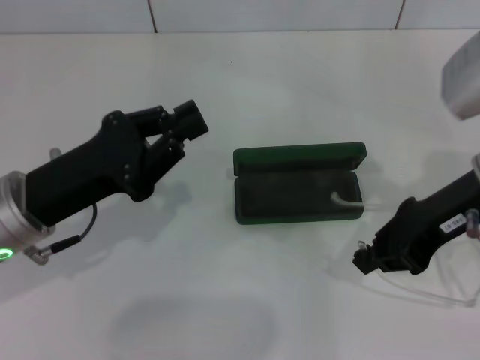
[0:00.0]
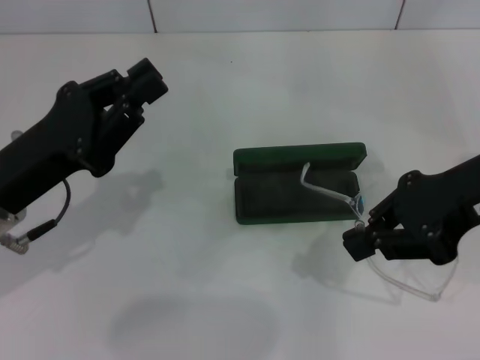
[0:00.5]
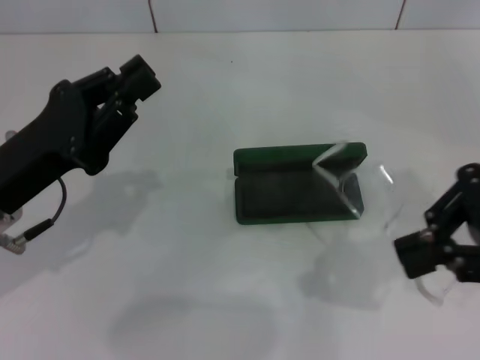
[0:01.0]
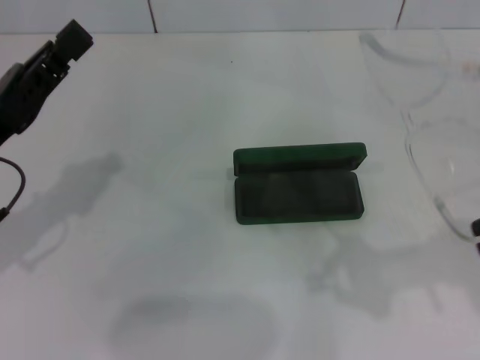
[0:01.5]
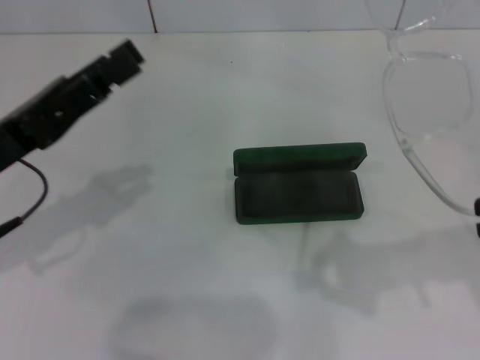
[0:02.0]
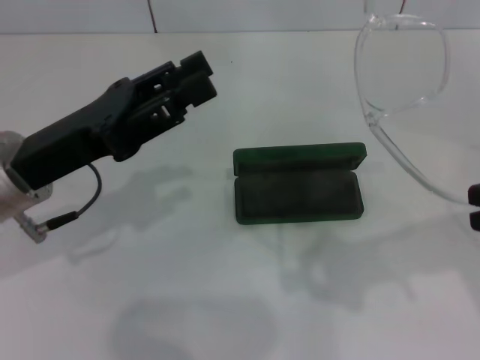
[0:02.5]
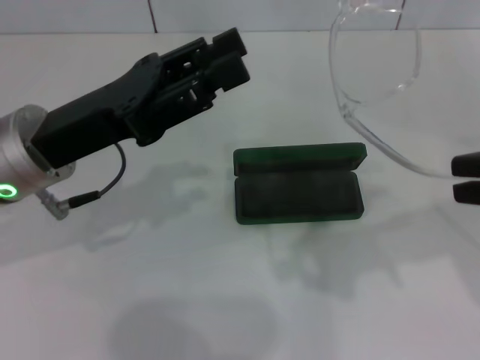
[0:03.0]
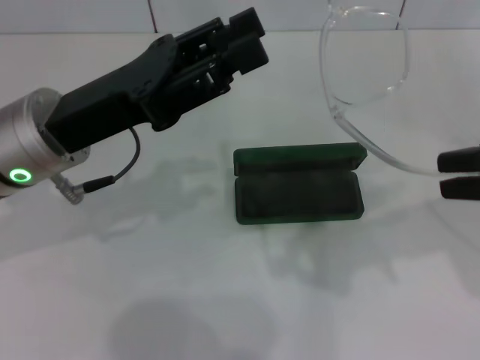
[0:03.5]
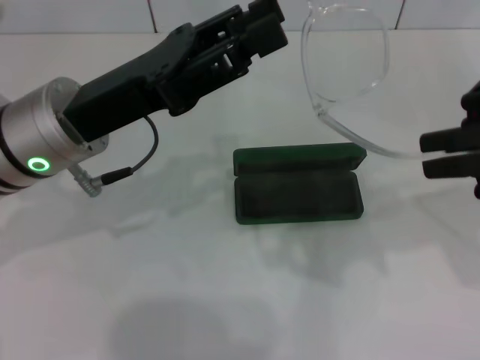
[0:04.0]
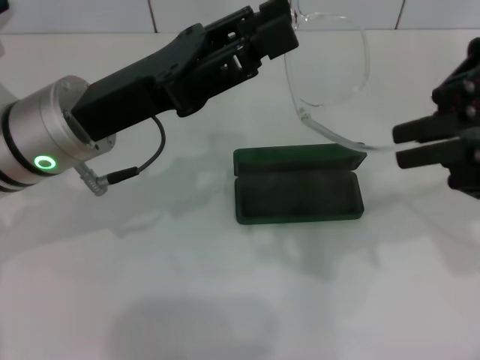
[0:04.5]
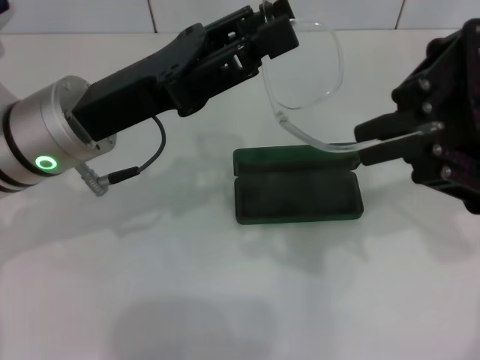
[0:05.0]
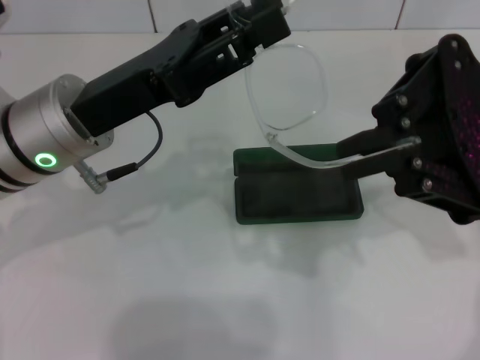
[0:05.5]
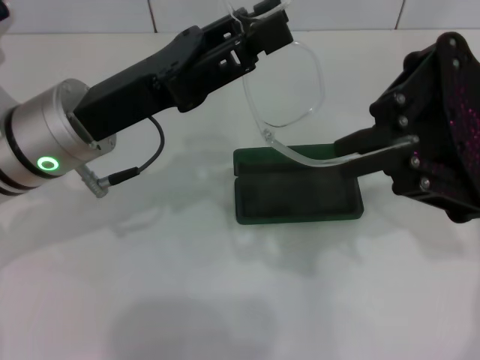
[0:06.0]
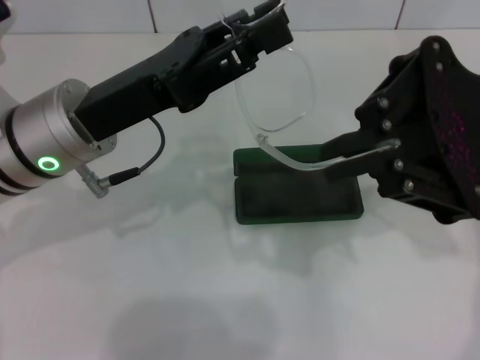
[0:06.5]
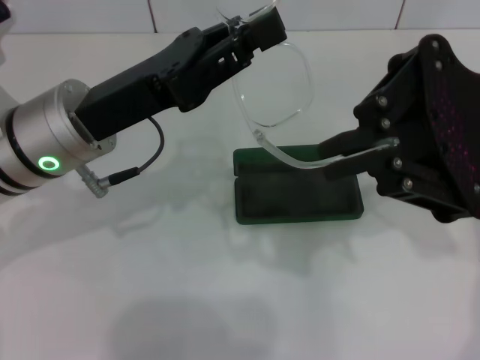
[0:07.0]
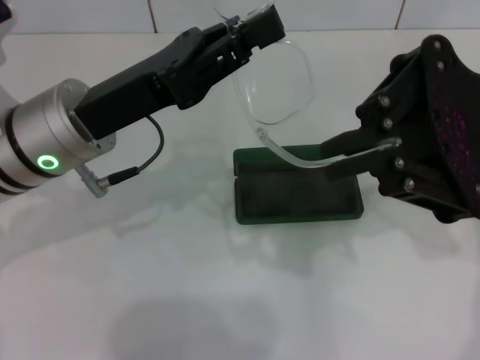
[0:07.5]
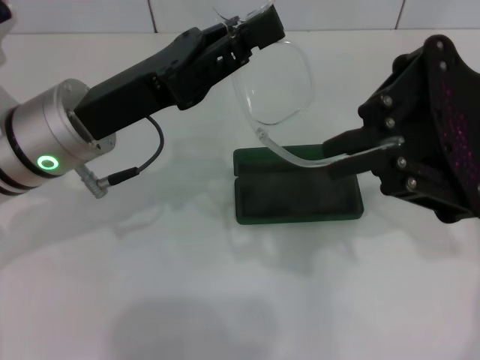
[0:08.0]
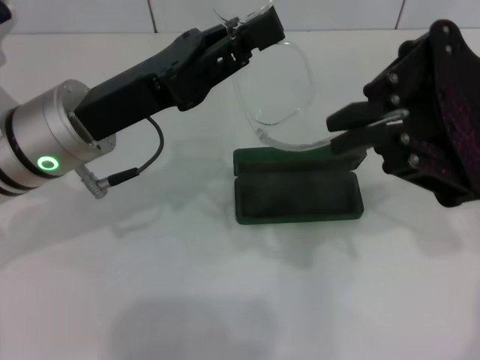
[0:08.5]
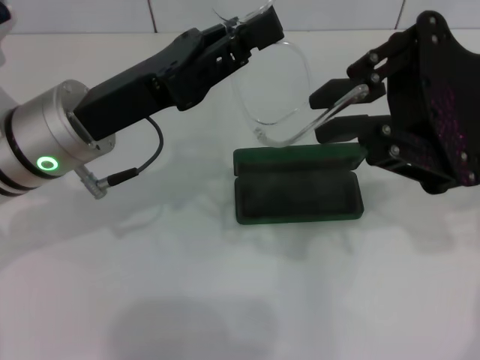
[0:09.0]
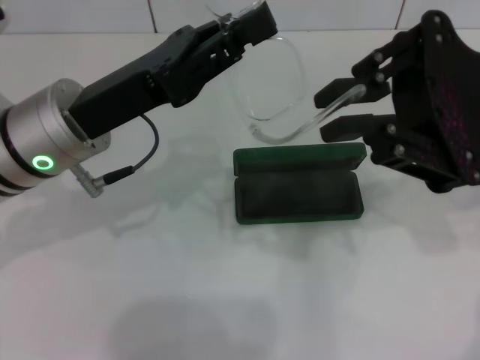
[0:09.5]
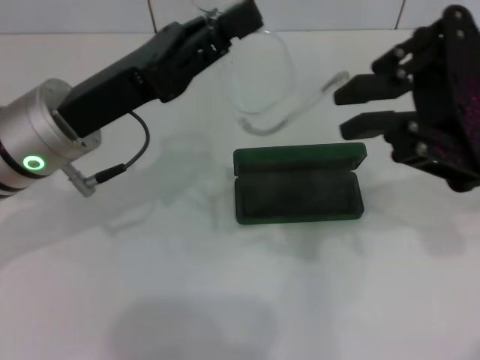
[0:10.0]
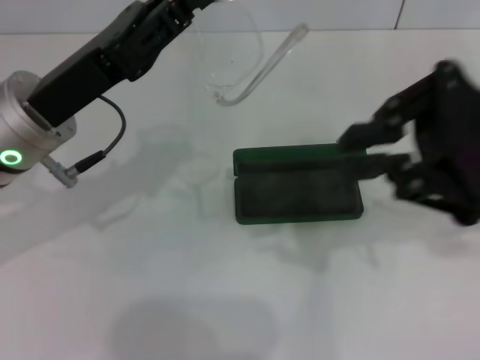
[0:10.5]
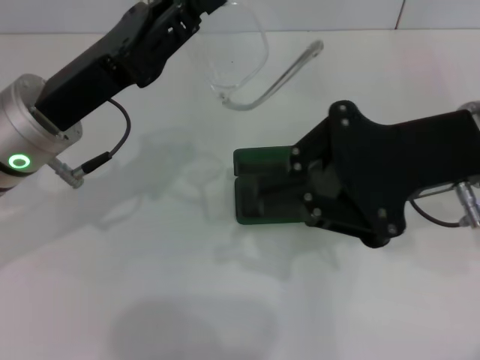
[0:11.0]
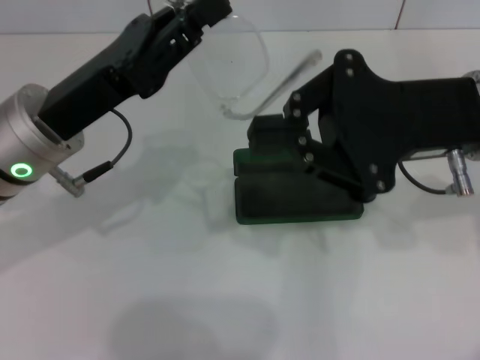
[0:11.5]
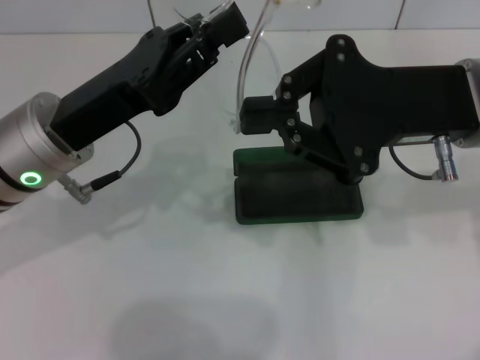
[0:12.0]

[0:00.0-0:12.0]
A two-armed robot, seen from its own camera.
Step, 0:00.0 to 0:07.0: Grab the glasses with your left hand.
0:00.0 to 0:02.0: The right gripper goes about 15 cm upward, backward and to the right.
0:02.0 to 0:04.0: The left gripper shifts about 10 cm to the right. Meanwhile the right gripper ends up about 5 cm from where it was.
0:04.0 to 0:06.0: There are only small adjustments of the grippers.
0:06.0 to 0:08.0: The left gripper closes its fingers.
0:08.0 to 0:10.0: There are only small adjustments of the grippers.
0:10.0 to 0:12.0: The grippers move only a little.

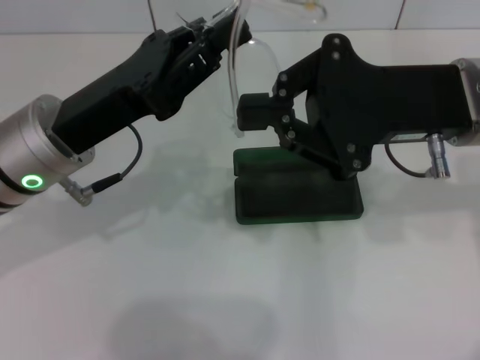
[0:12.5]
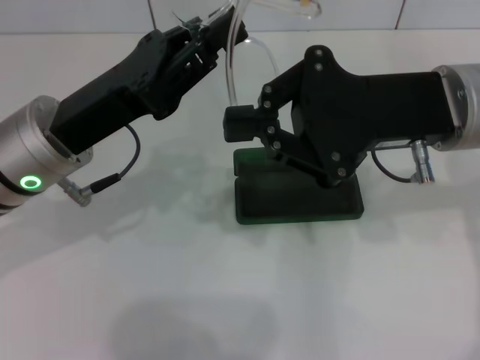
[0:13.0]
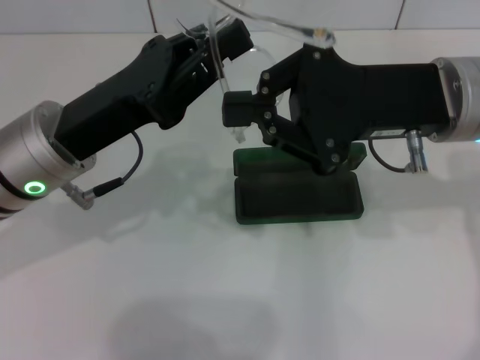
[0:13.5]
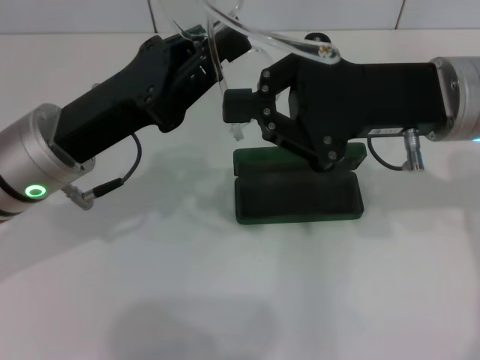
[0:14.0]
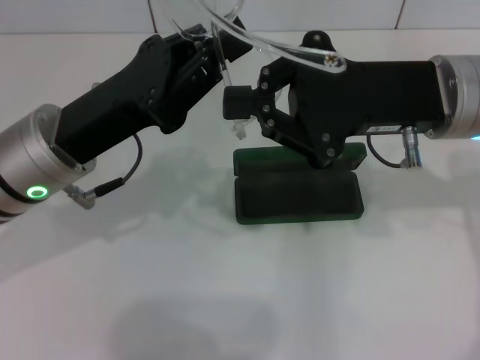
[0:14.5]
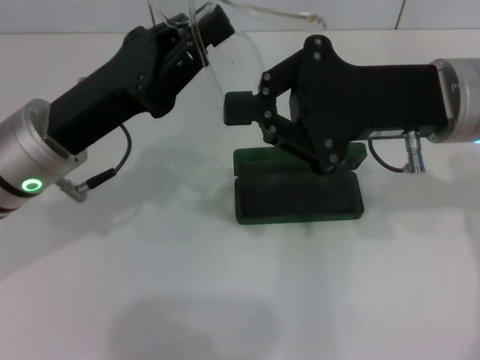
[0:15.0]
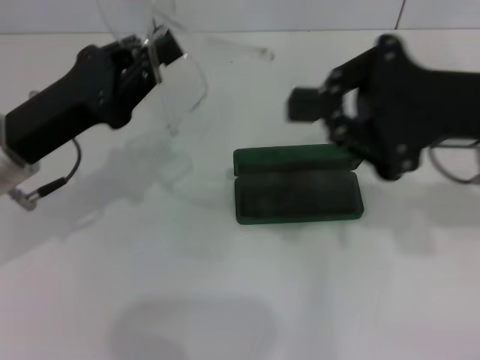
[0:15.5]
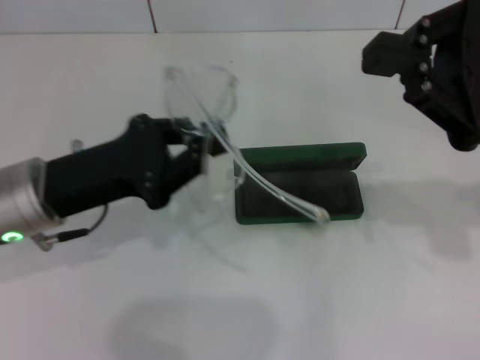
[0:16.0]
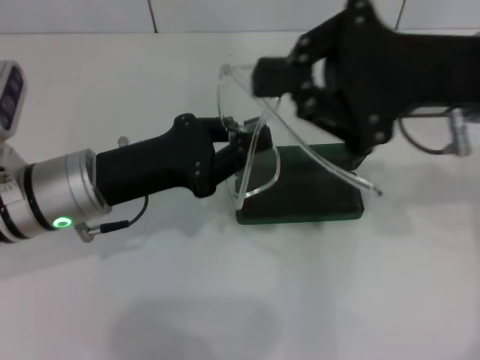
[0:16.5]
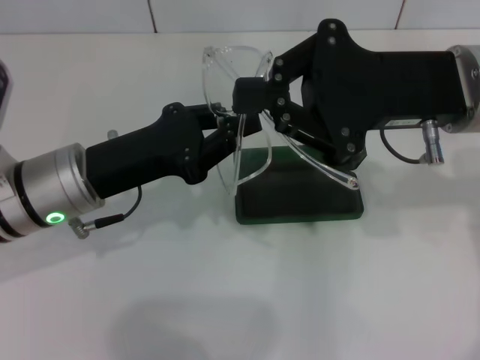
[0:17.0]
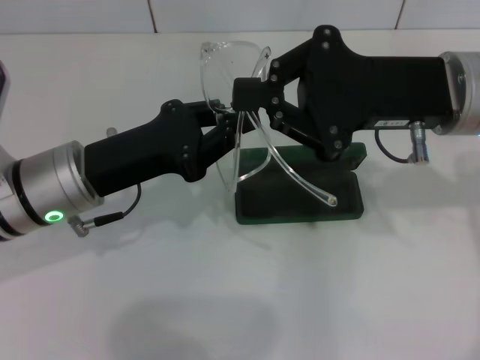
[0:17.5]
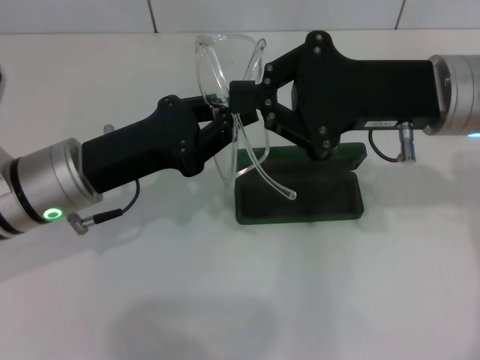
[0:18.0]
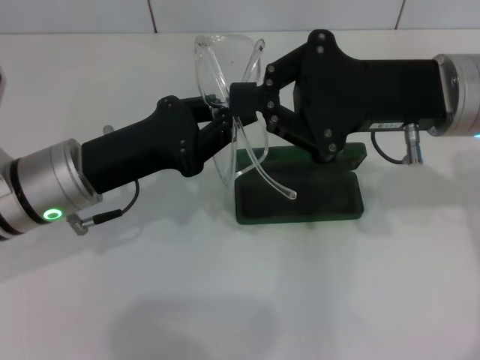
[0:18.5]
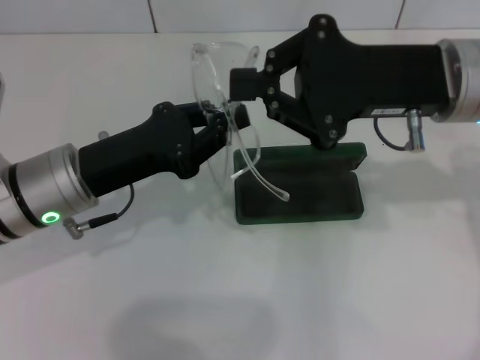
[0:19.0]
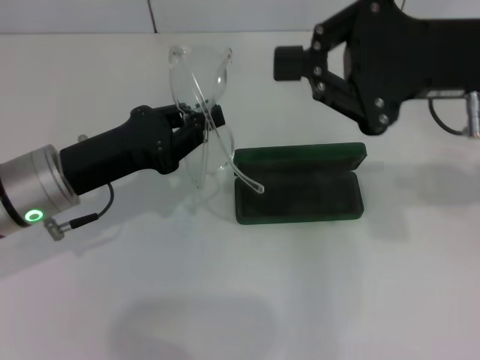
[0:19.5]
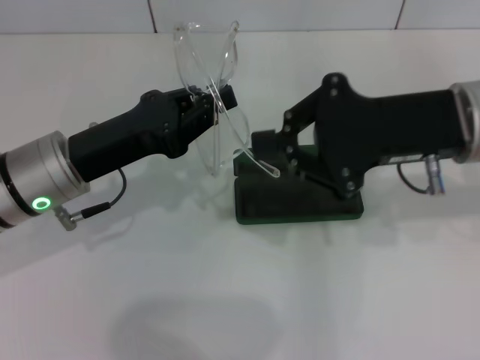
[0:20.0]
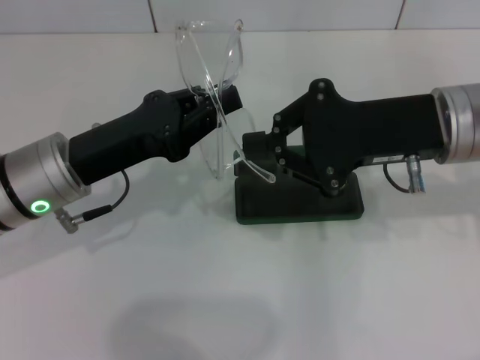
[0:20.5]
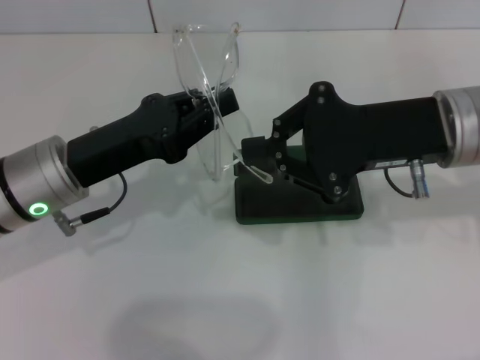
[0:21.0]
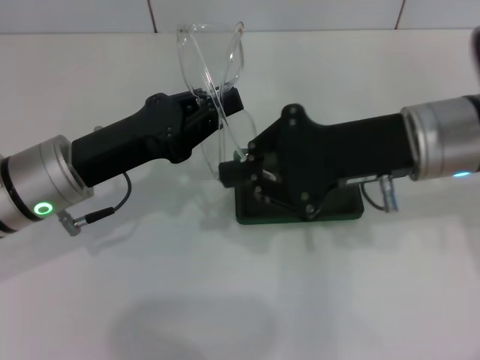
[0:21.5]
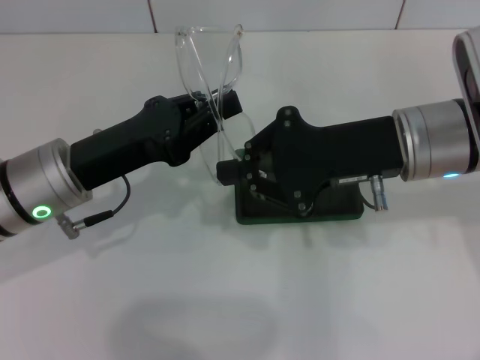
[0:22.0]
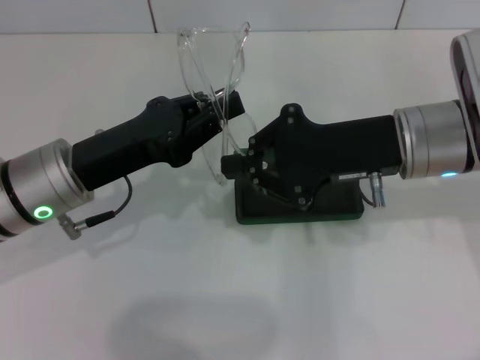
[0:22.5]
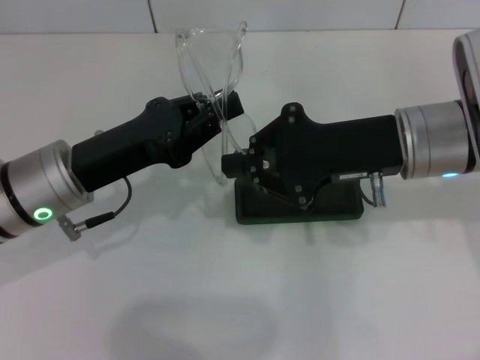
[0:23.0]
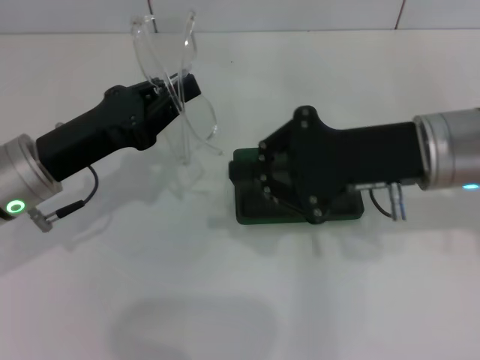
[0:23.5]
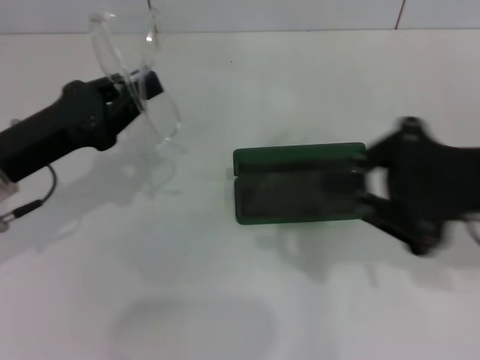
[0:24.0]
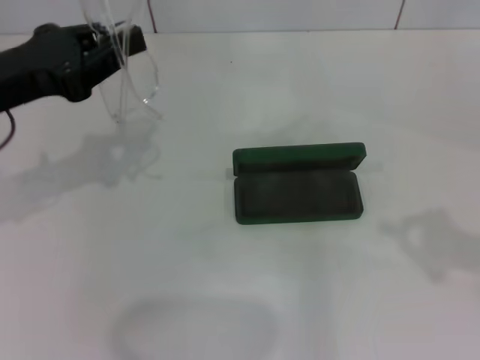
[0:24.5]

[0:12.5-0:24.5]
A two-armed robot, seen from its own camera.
Step, 0:12.5 to 0:21.0: Fold the frame with your right hand.
0:12.5 to 0:14.5: The grippers make only small movements.
0:14.5 to 0:16.5: The right gripper travels to the right and back again, roughly 10 cm each way.
0:18.5 to 0:22.5: The grippers make only small movements.
0:22.5 to 0:24.5: The right gripper is displaced to the right and backward by roughly 25 cm. The left gripper shifts roughly 10 cm upward and to the left.

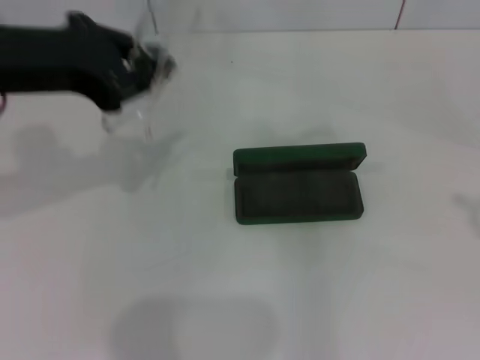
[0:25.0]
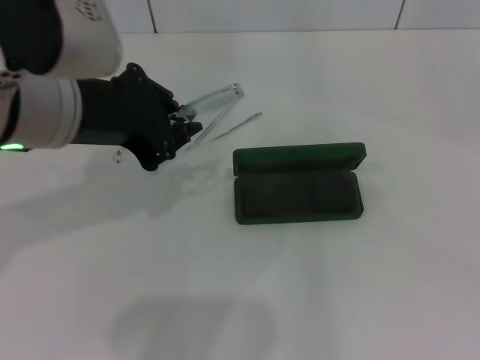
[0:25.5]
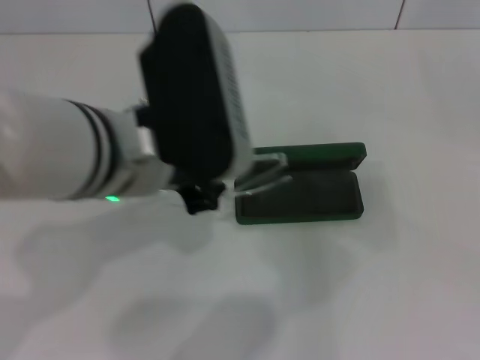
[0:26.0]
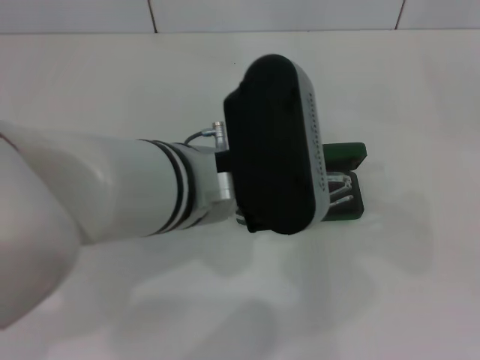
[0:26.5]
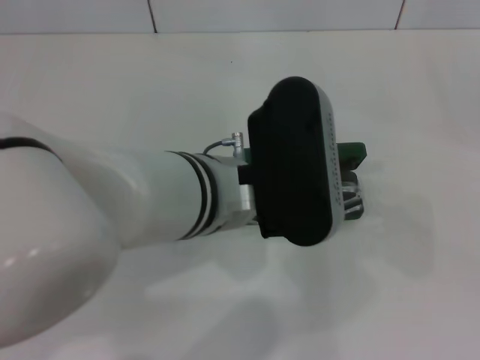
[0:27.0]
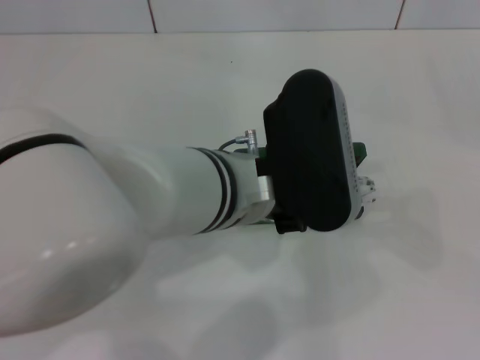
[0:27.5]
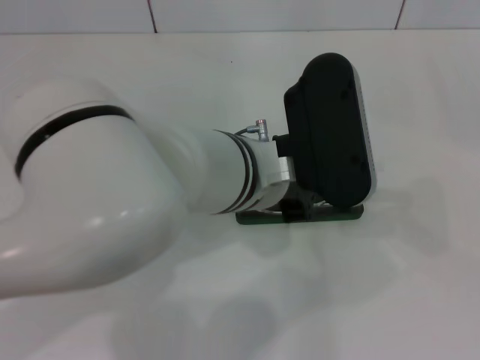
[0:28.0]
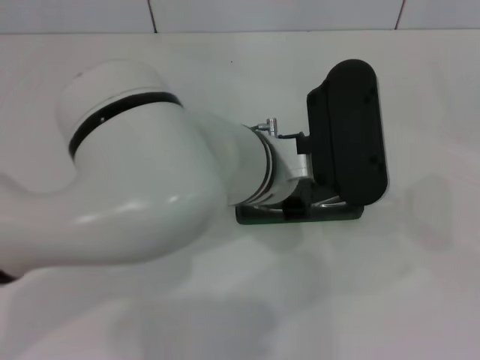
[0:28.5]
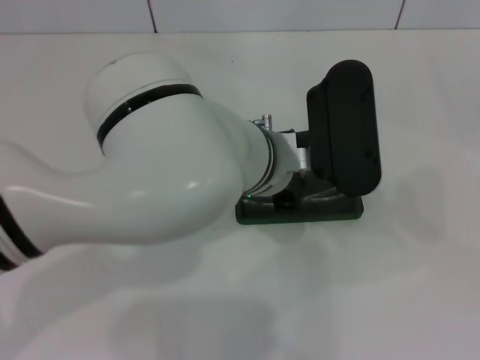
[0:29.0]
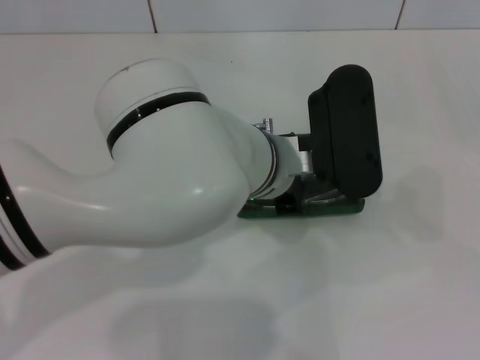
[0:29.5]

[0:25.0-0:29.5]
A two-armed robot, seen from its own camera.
0:25.0 to 0:27.0: The left gripper heads to the right and downward, covering some 20 cm.
0:27.0 to 0:29.5: The left gripper moves approximately 5 cm.
